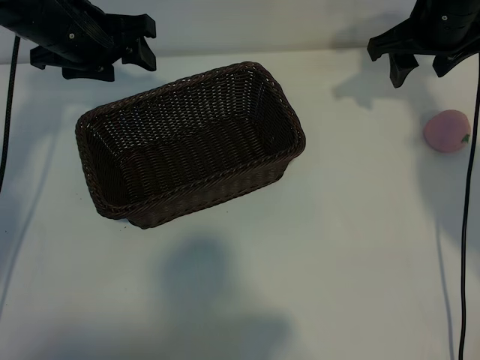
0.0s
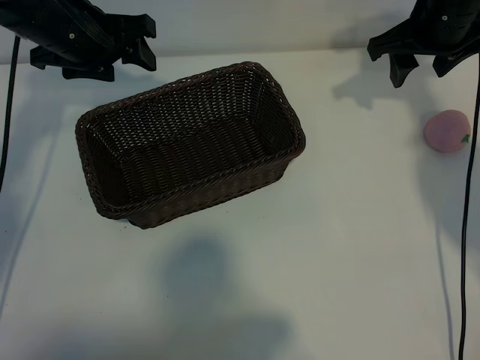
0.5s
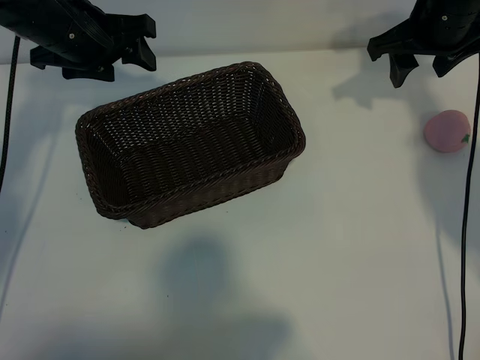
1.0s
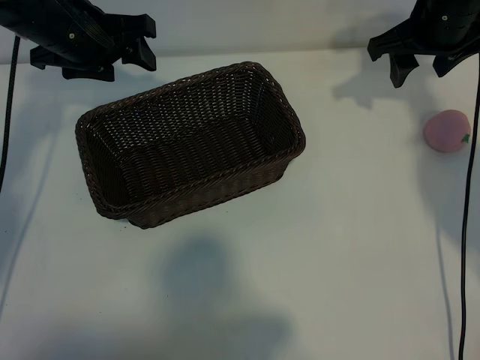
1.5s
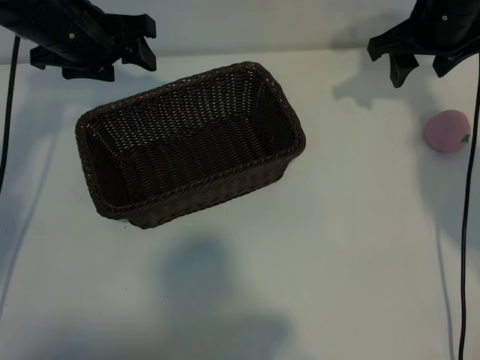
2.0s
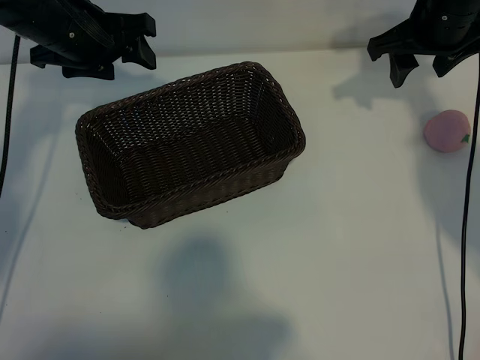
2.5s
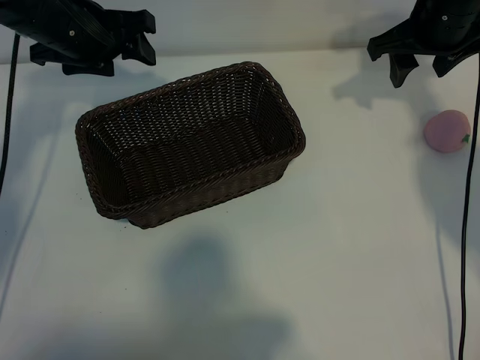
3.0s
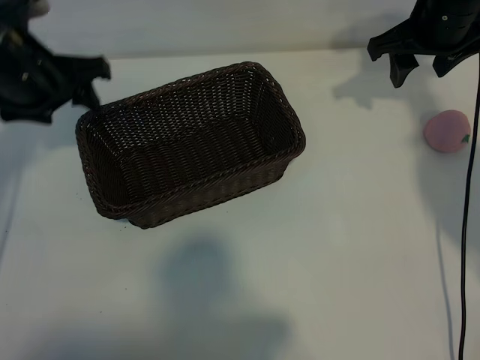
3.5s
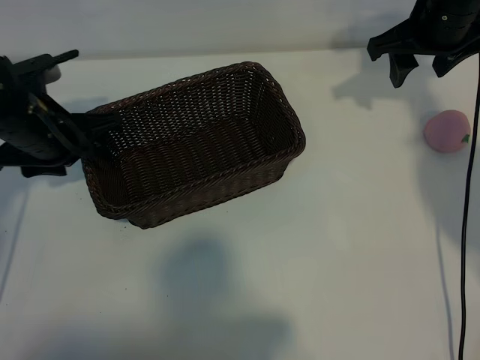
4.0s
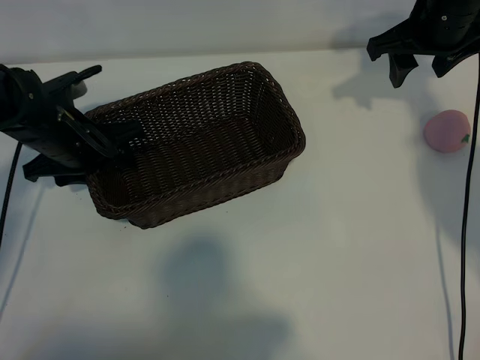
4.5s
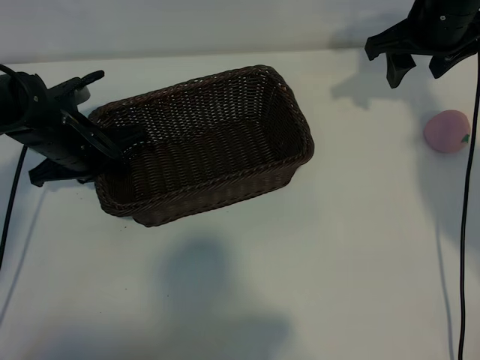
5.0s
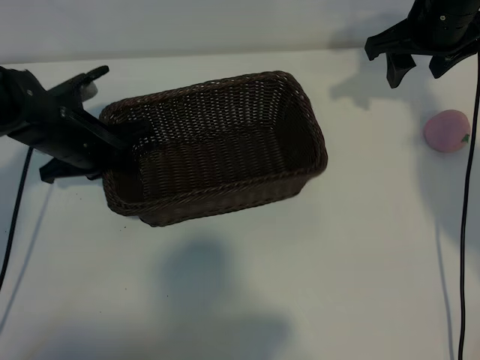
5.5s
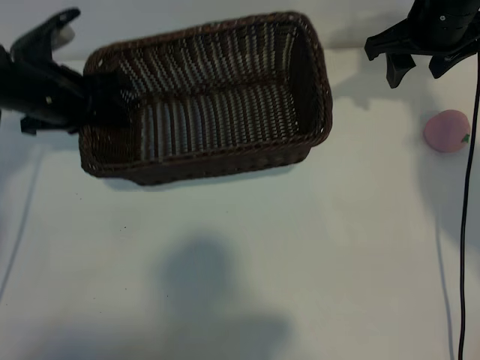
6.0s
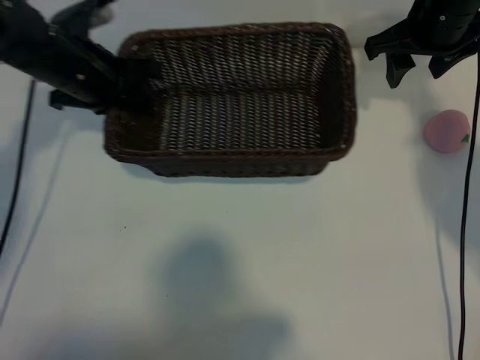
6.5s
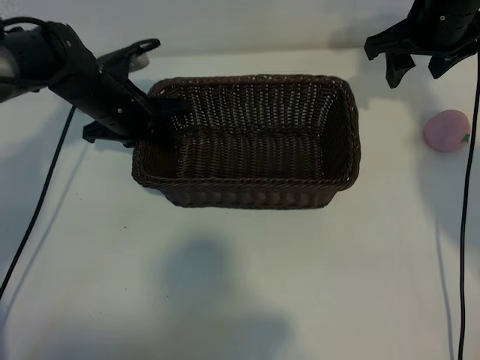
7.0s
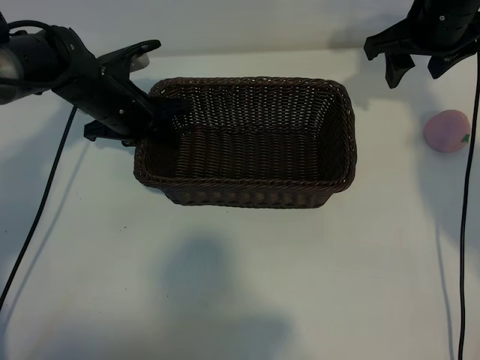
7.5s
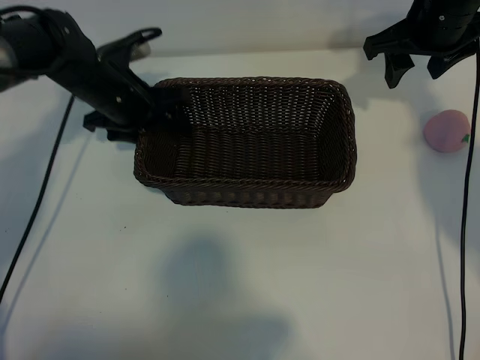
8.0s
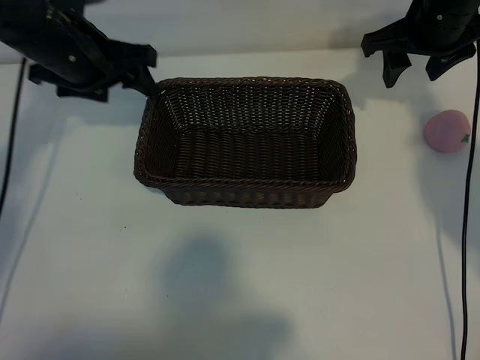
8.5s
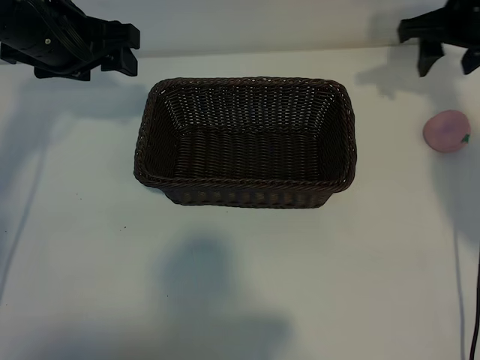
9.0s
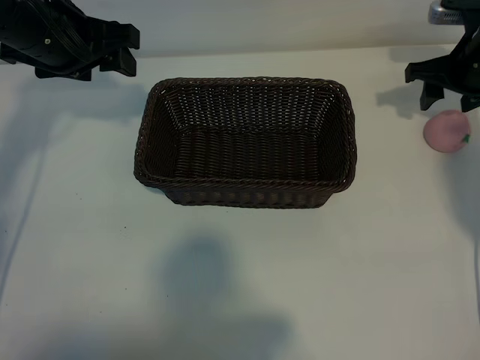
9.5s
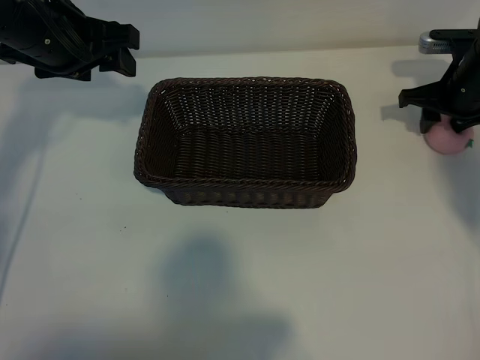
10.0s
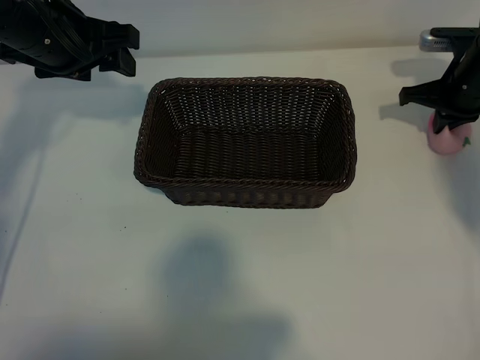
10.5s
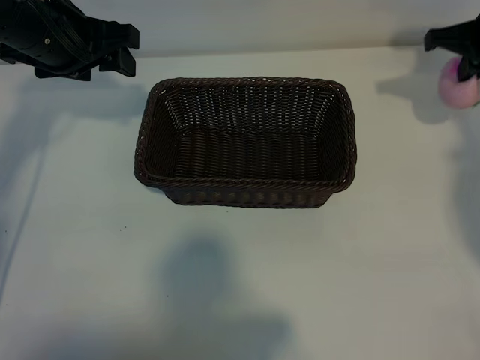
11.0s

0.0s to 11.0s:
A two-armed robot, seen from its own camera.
Task of the whole recording: pick up the peach and put it into the basket.
Step, 3.5s to 5.0s: Grasp the basket with left gripper.
Step, 5.5s to 7.5s: Place the basket in the center of view with left gripper.
Step, 8.0s to 10.5s: Grasp the peach with right gripper.

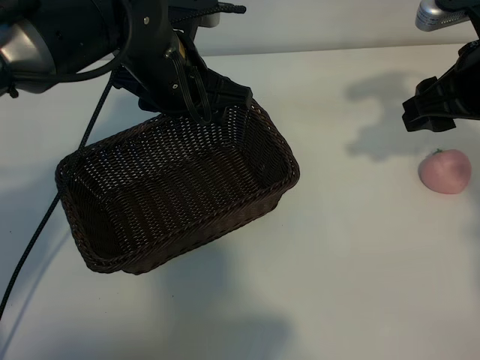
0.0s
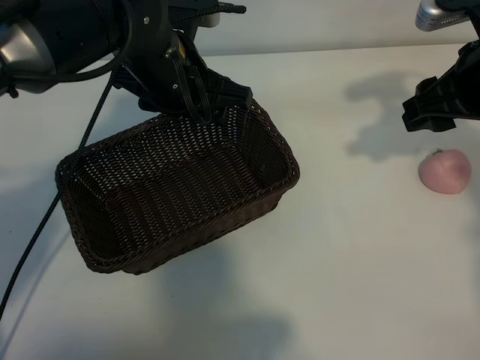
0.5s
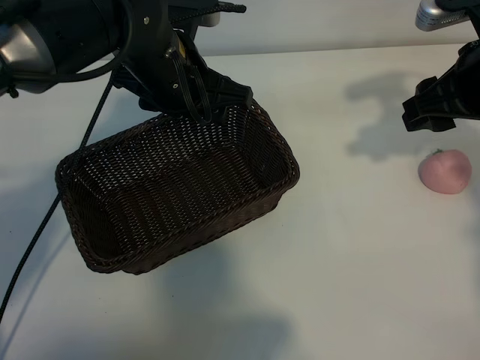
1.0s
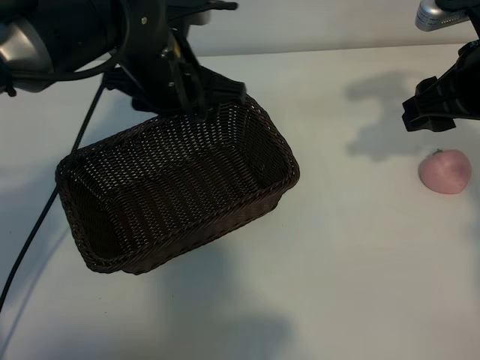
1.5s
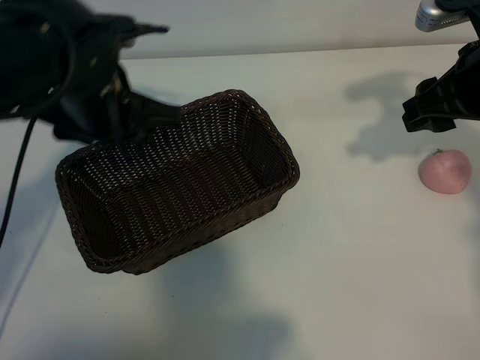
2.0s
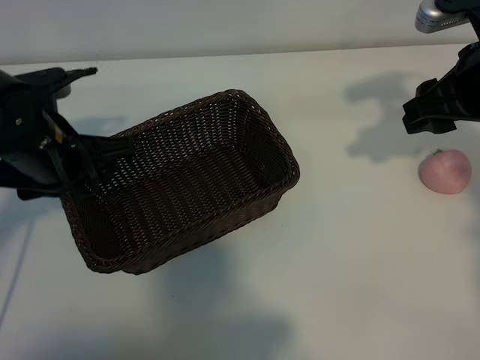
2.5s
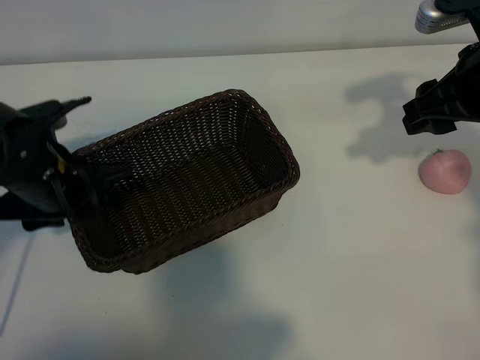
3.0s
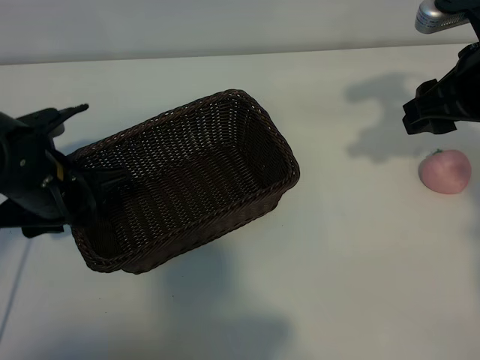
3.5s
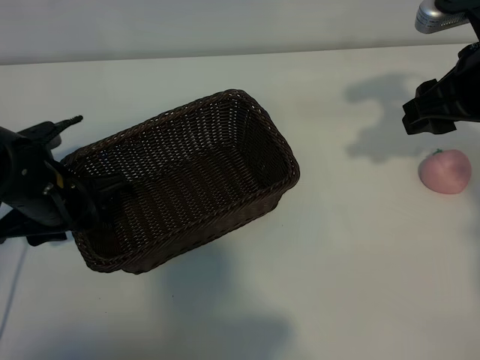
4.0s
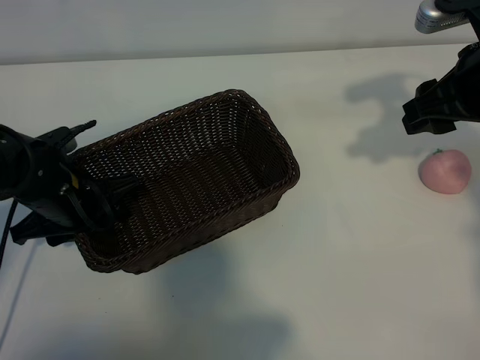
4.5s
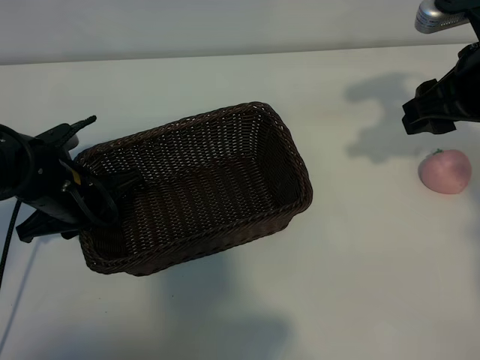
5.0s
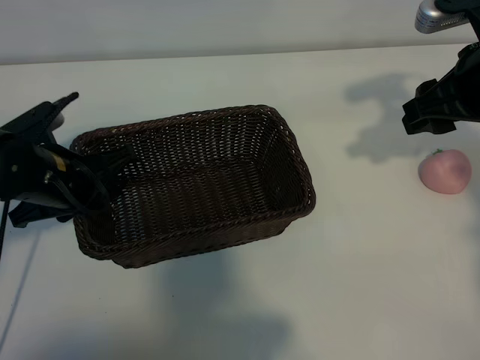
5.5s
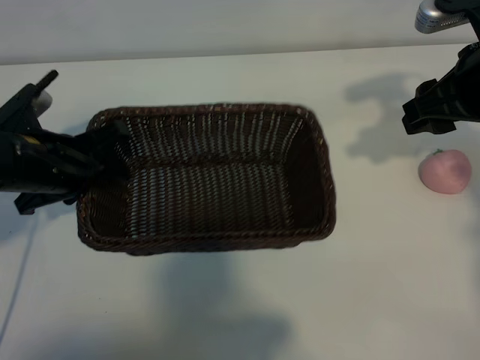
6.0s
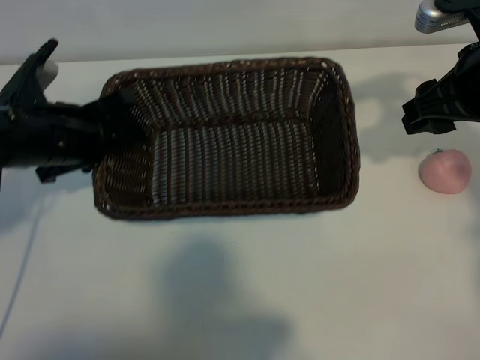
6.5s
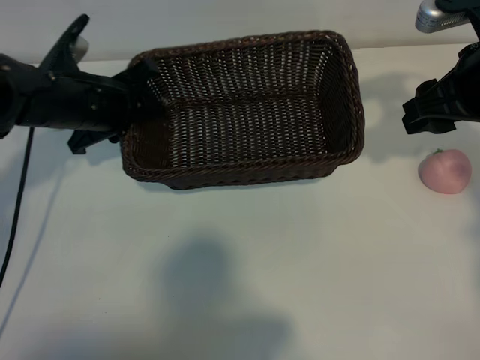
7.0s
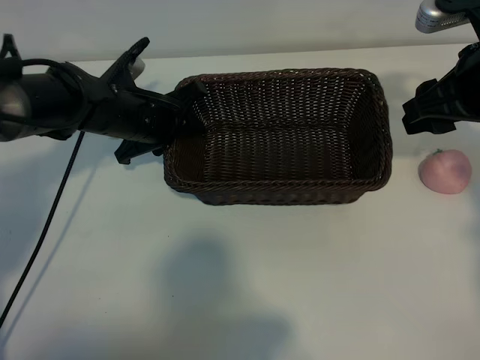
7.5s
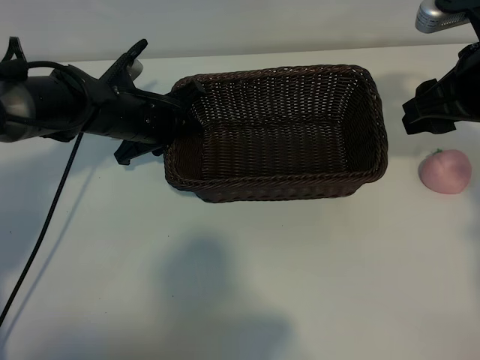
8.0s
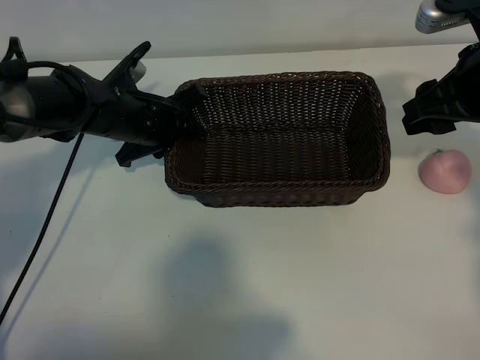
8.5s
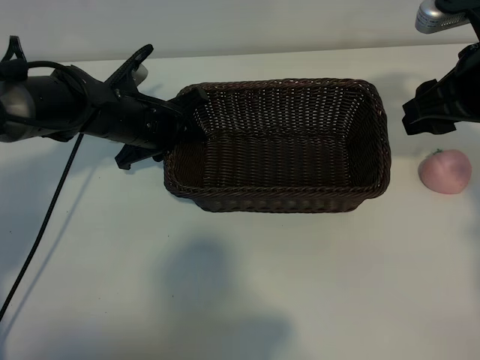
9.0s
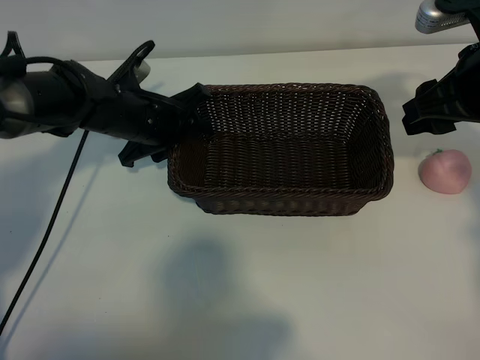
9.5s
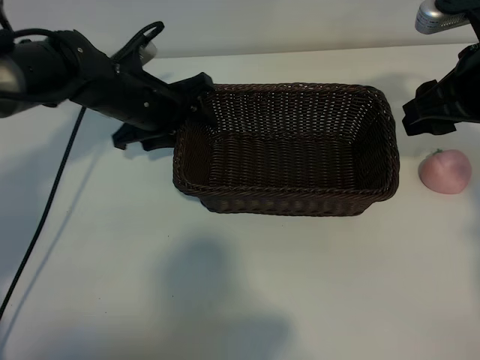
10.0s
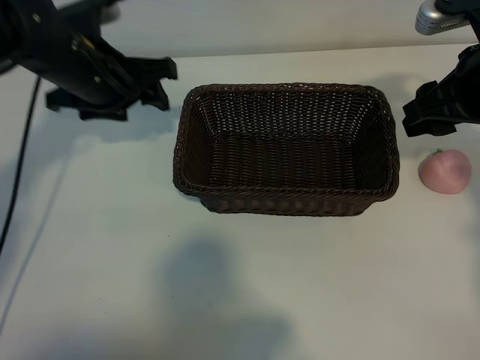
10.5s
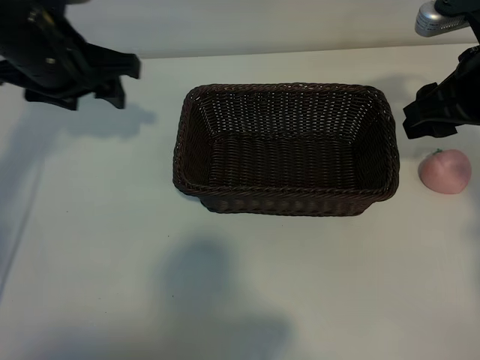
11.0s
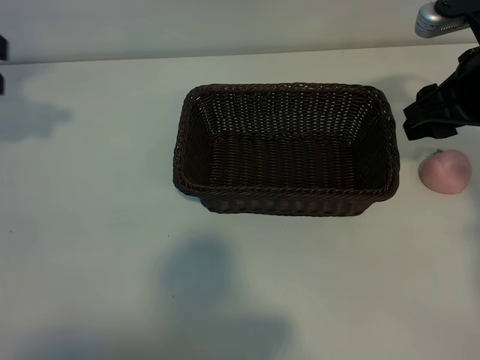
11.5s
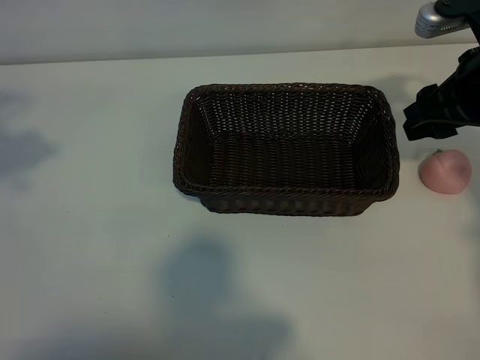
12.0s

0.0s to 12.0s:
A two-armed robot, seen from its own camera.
Task of the whole recording: pick up the peach and put it into the basket.
Step, 1.5s to 5.0s: Grasp the basket with left gripper.
Step, 5.5s to 10.0s: Place the basket in the center of view with left gripper.

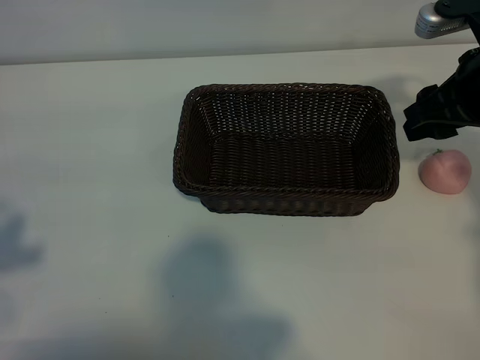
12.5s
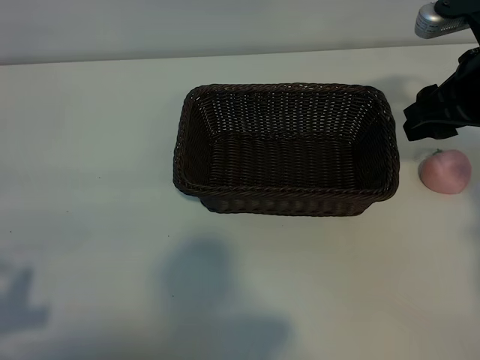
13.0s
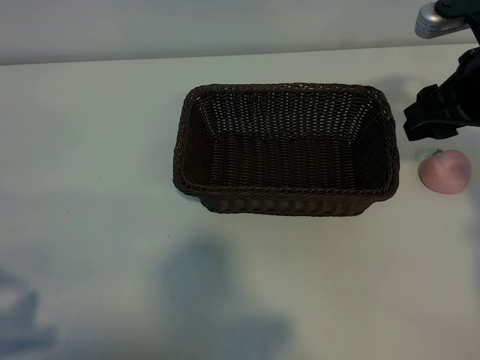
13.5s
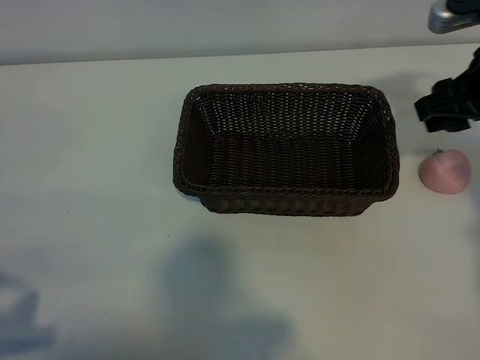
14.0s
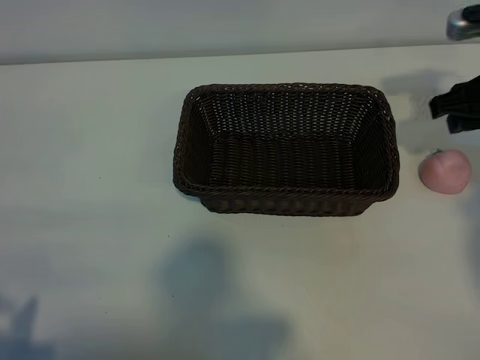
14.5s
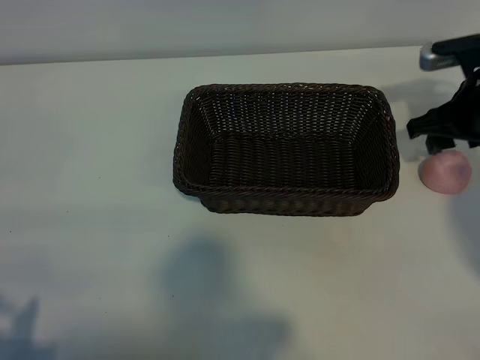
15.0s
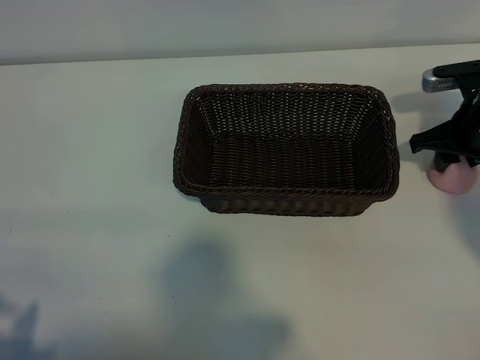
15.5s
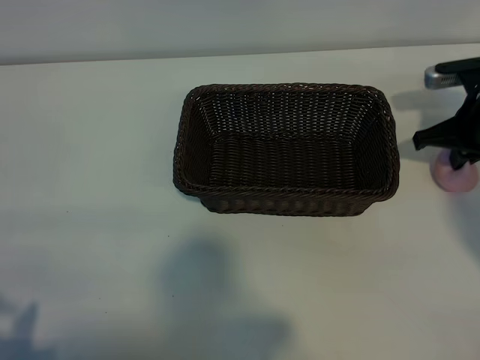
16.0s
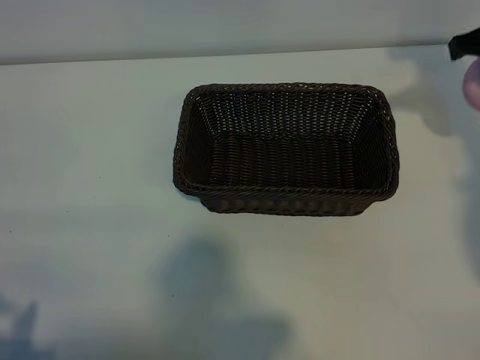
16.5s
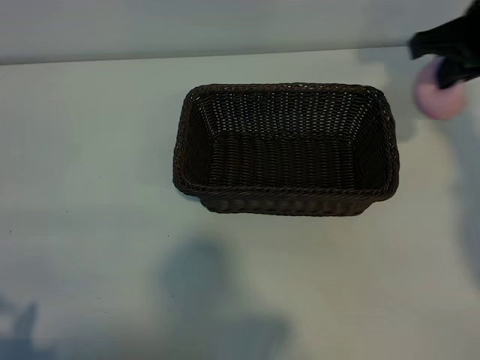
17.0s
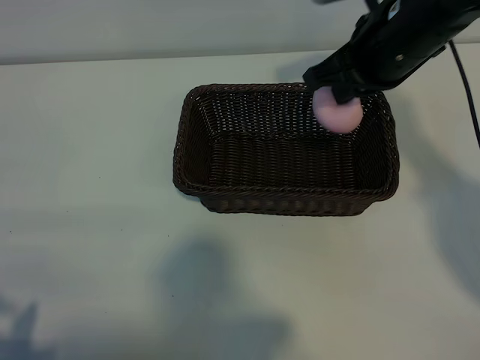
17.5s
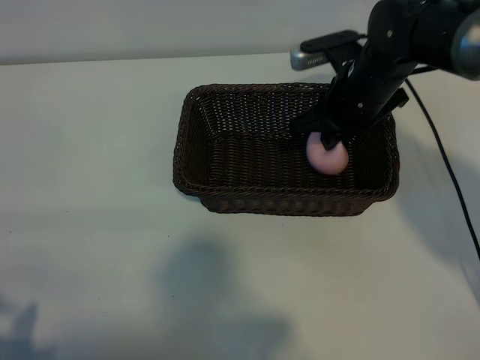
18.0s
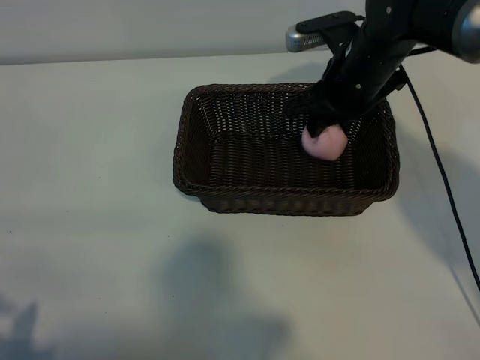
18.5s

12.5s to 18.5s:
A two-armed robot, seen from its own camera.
Task of the whole recording: pick up the peach and put it into the basket.
Step, 12.5s to 15.5s: Grasp the peach with right gripper.
